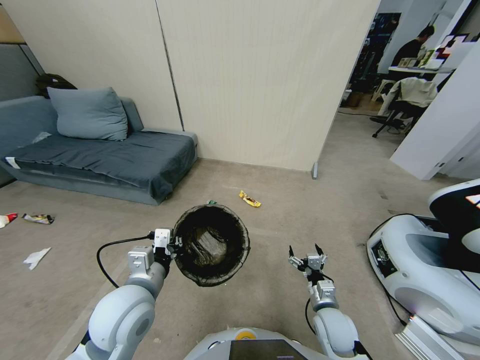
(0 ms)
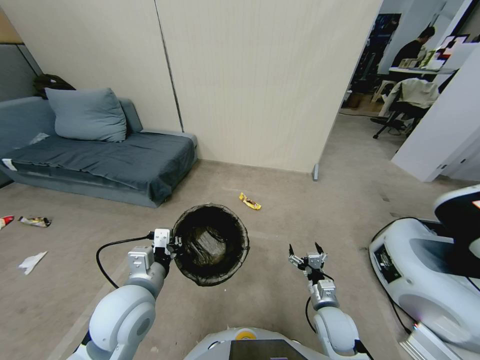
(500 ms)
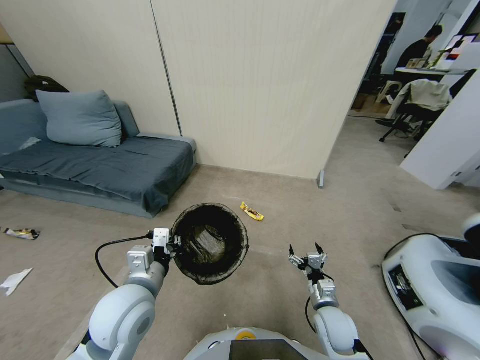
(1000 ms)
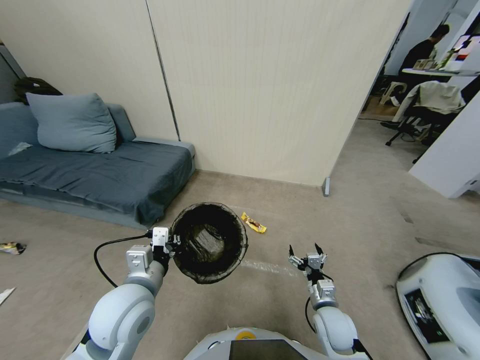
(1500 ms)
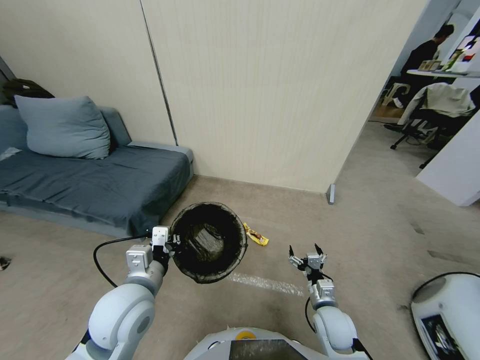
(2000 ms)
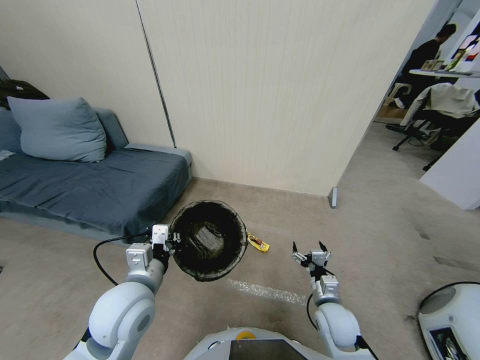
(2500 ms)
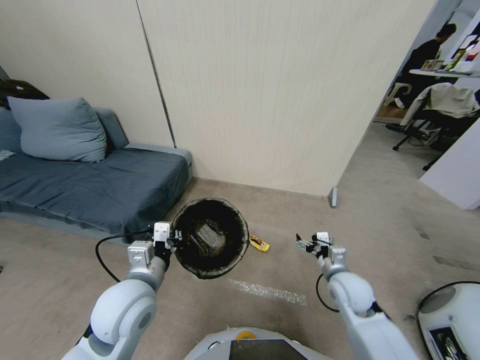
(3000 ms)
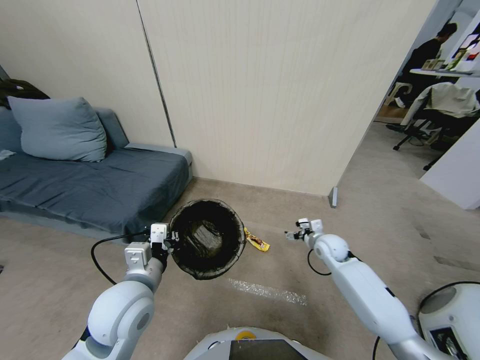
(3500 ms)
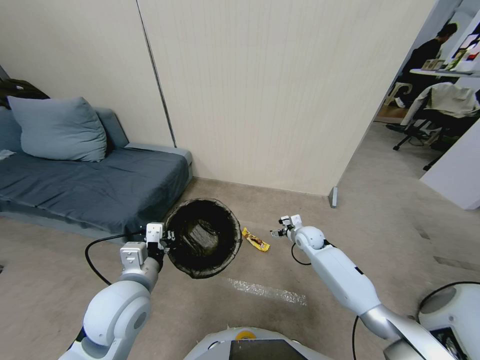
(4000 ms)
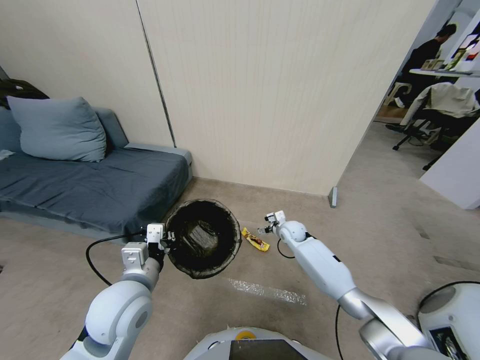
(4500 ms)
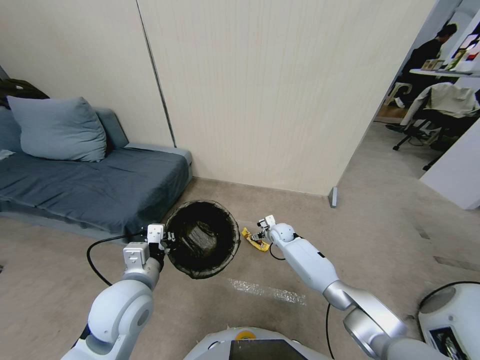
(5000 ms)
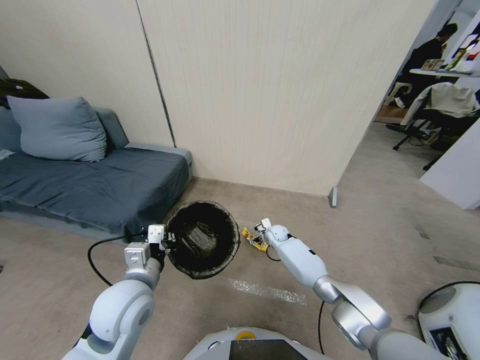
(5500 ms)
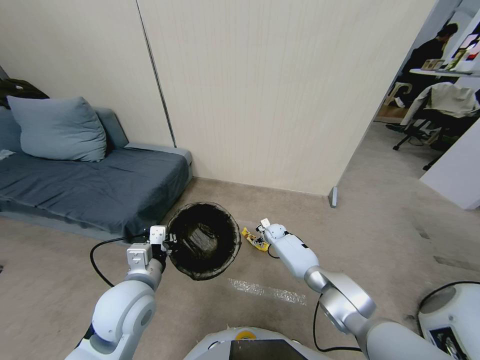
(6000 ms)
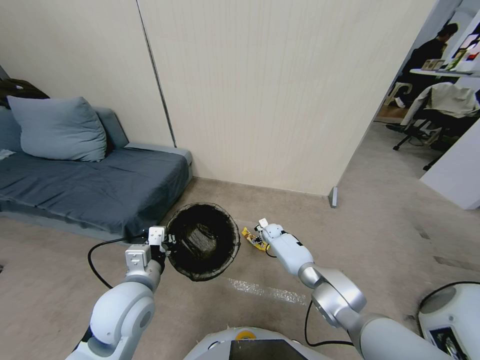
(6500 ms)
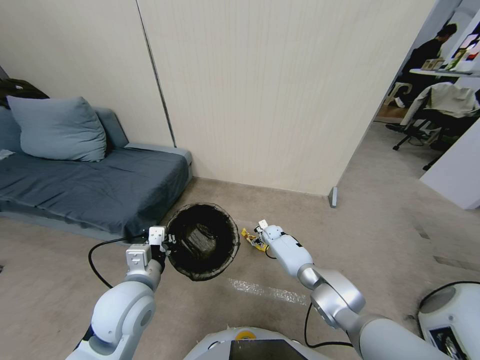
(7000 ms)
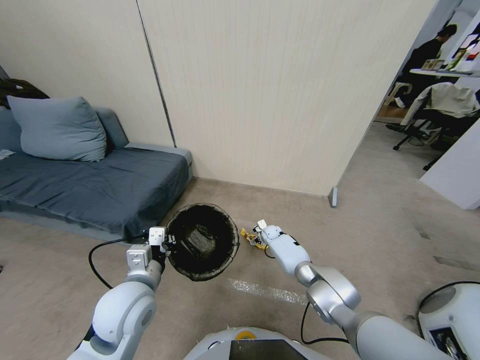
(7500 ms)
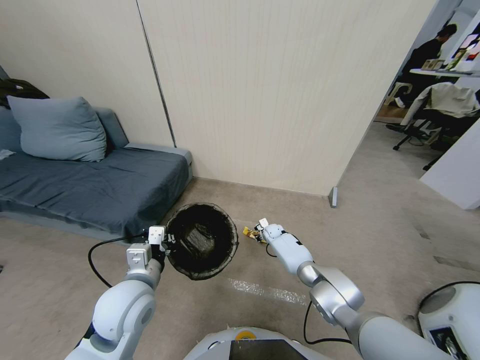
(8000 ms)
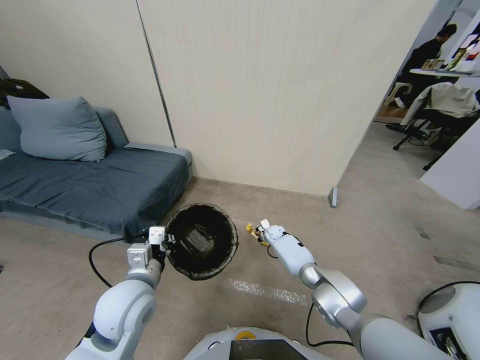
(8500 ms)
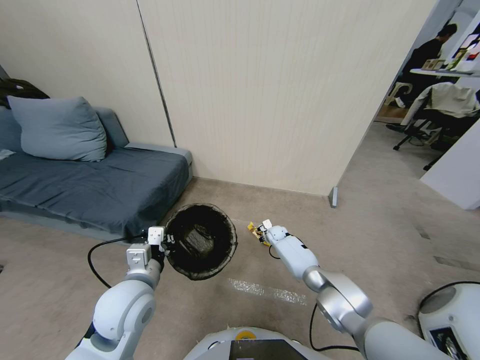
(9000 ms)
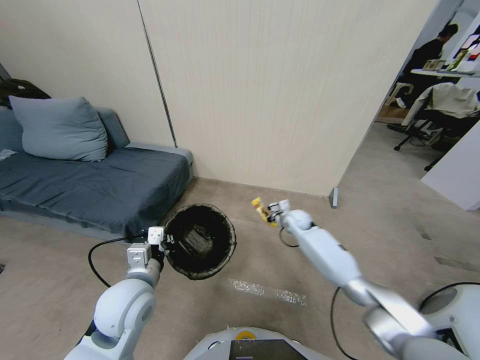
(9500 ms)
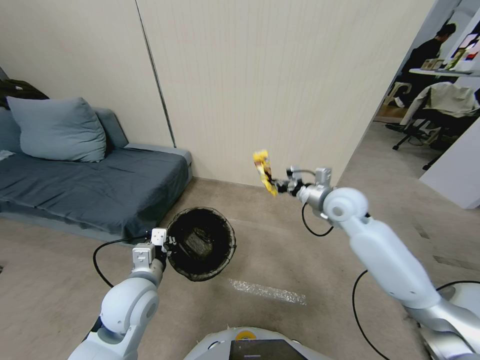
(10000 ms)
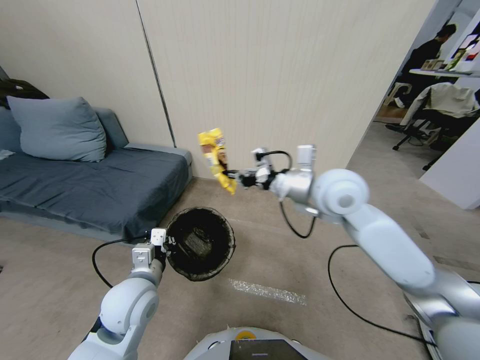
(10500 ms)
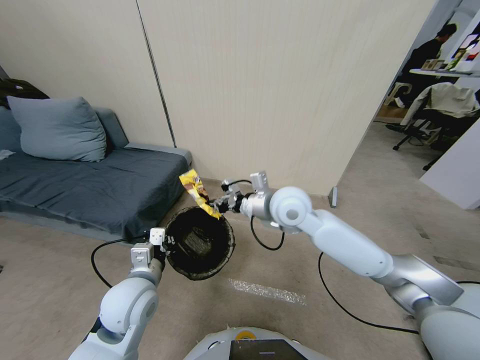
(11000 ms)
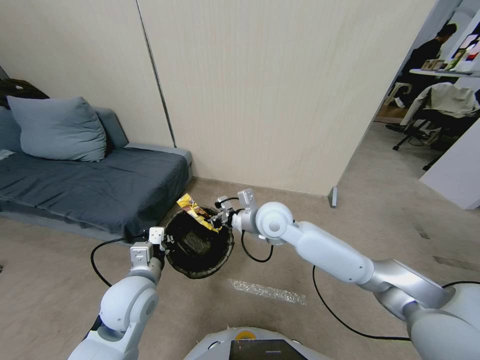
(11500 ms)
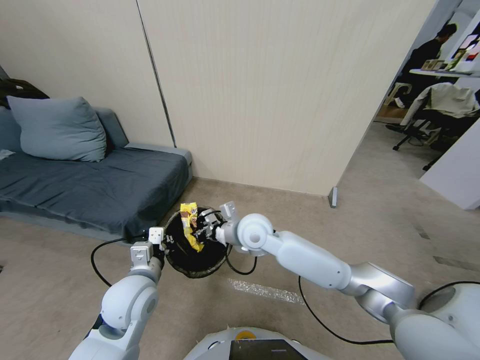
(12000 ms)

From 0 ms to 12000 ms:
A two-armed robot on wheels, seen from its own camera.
Task of the whole recording: Pick up the trash bin, then pick up the garbage from the floor and place it into the trash bin.
From 2000 ms to 4000 ms: The right gripper heads forward, covering about 25 cm.
From 4000 ms to 6000 ms: The right gripper shifts about 15 cm downward, forward and to the left.
From 6000 ms to 8000 ms: The right gripper closes.
From 8000 ms to 10000 ms: The right gripper shifts about 40 cm upward and backward.
From 10000 ms to 12000 ms: The right gripper goes some 25 cm to the left and downward.

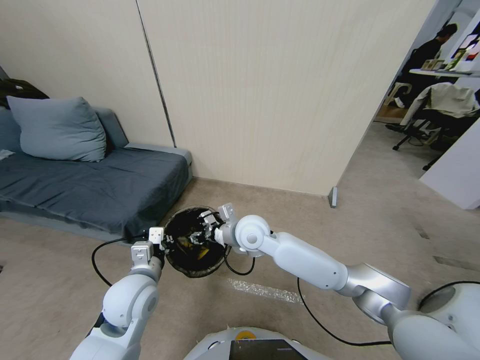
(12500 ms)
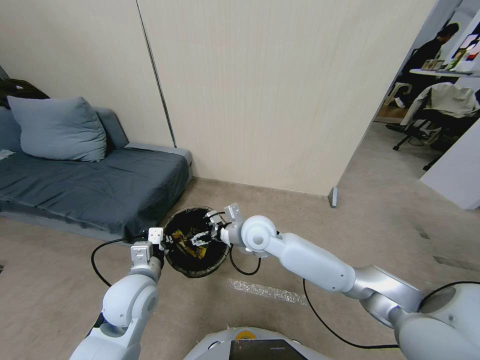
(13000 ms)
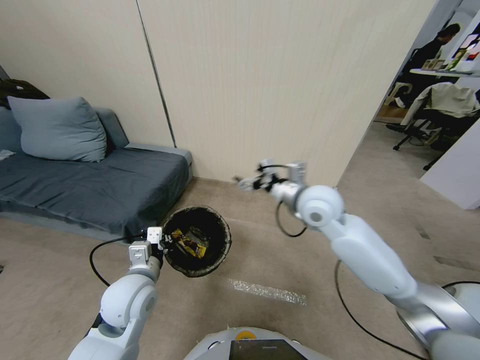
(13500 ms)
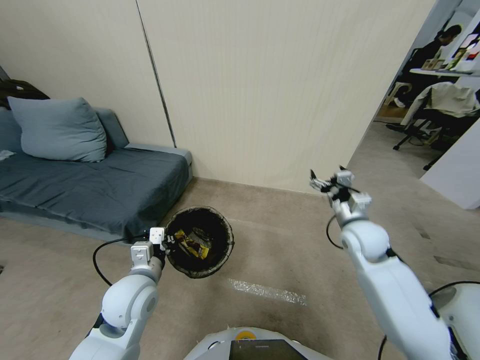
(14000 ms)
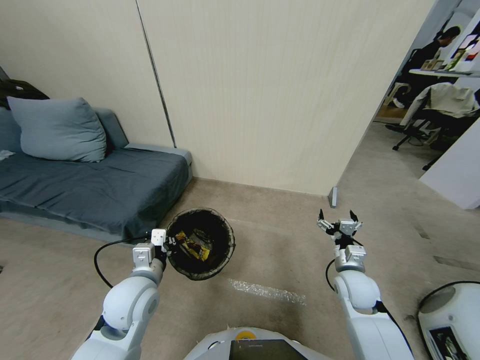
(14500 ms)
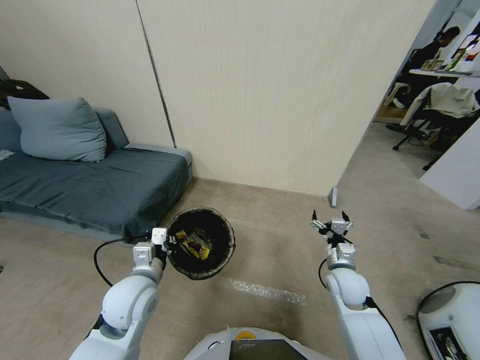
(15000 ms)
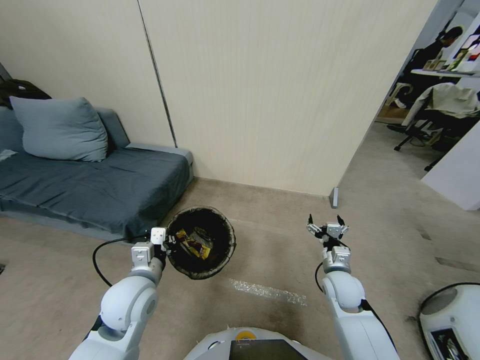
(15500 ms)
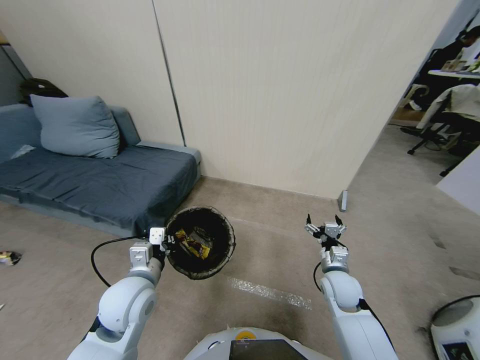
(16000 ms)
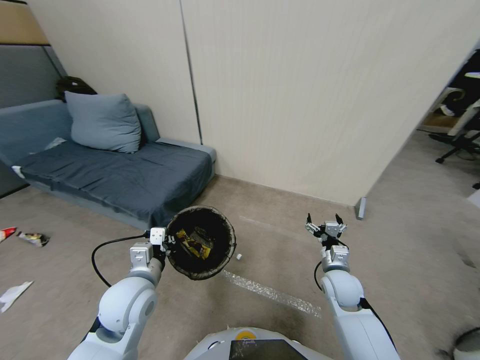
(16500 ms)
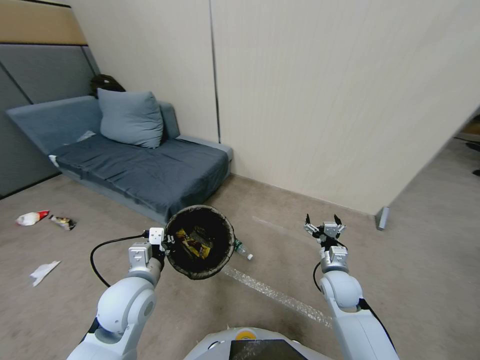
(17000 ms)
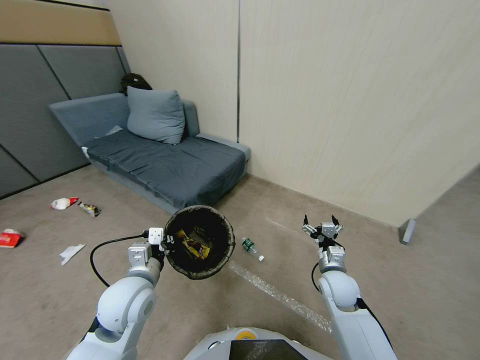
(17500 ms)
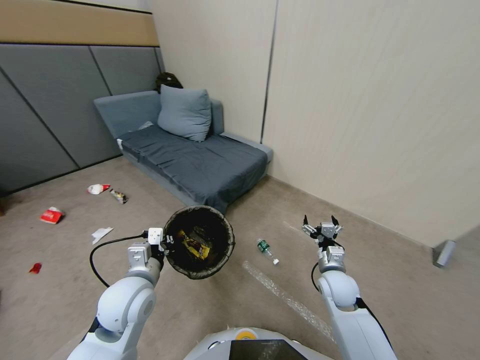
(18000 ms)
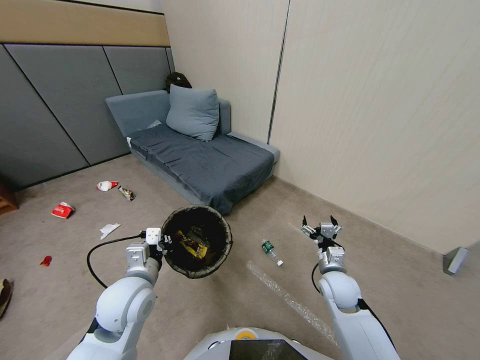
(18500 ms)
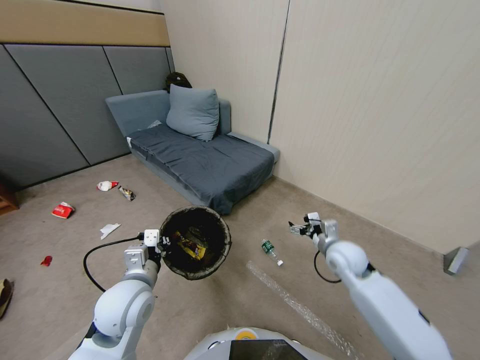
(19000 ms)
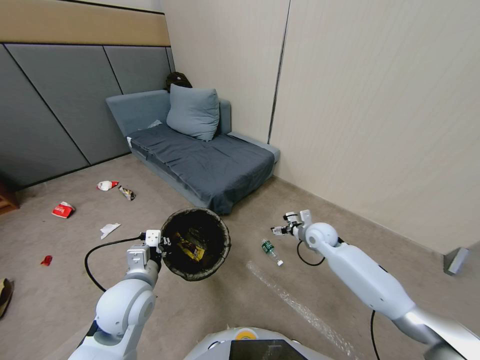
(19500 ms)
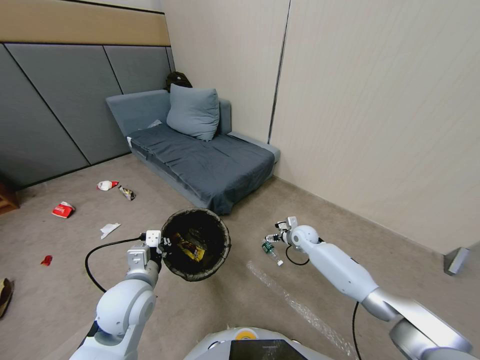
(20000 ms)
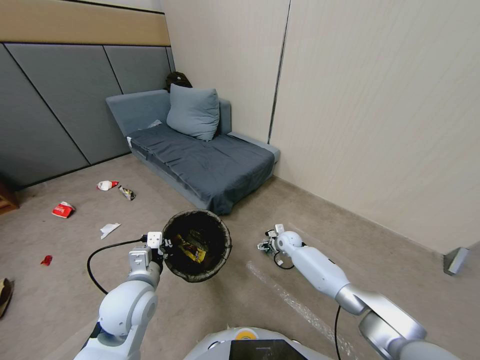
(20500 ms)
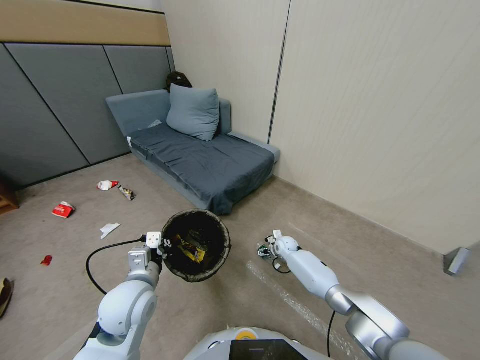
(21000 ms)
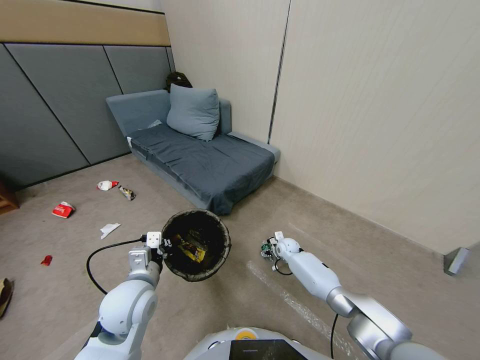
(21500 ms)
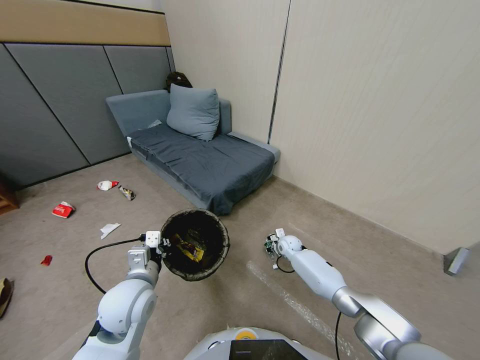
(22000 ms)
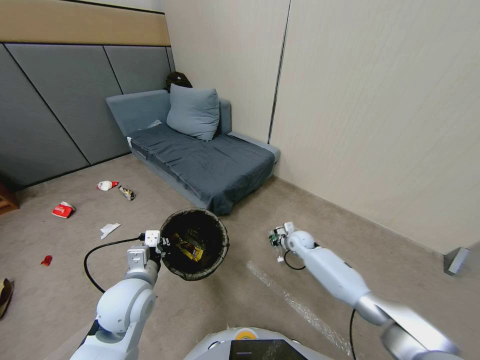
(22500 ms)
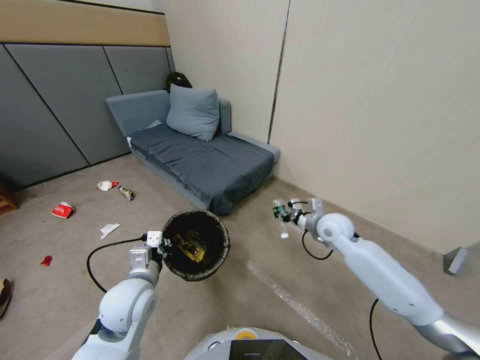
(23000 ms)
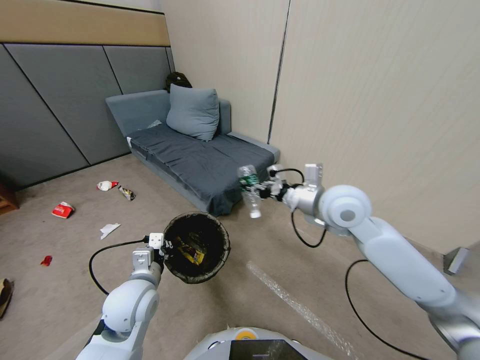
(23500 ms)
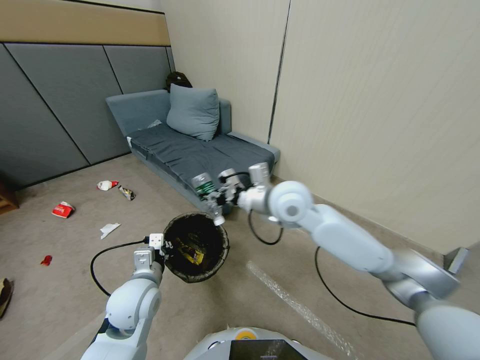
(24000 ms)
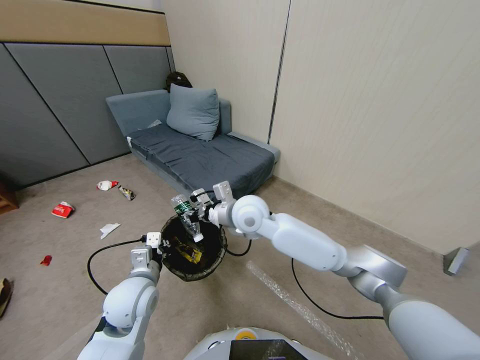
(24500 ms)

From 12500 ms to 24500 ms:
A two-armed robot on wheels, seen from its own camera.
Task of the whole recording: Pick up the trash bin, then pick up the garbage from the floor and place it into the trash bin.
From 12500 ms to 14500 ms: The right gripper shifts about 30 cm to the right and downward, and opens up.
From 18500 ms to 20500 ms: The right gripper heads forward and downward, covering approximately 25 cm.
From 20500 ms to 22500 ms: The right gripper travels upward and to the right by roughly 10 cm, and closes its fingers.
From 22500 ms to 24500 ms: The right gripper travels to the left and upward by approximately 35 cm.

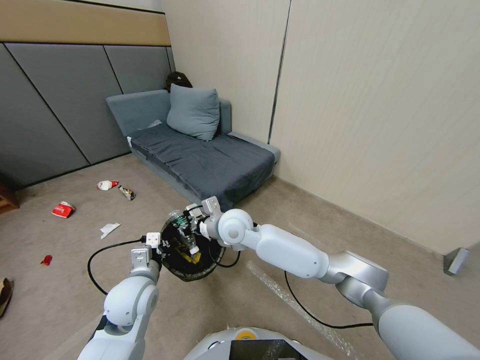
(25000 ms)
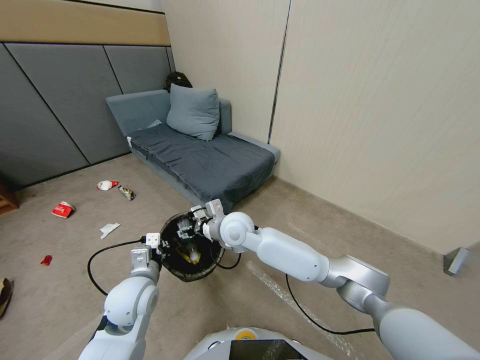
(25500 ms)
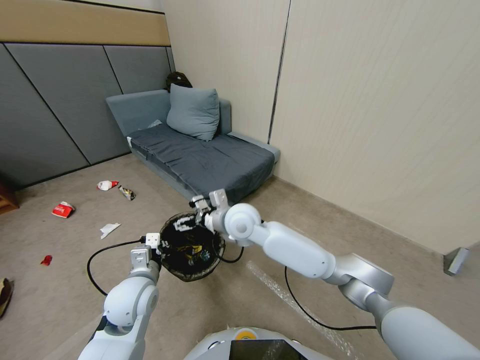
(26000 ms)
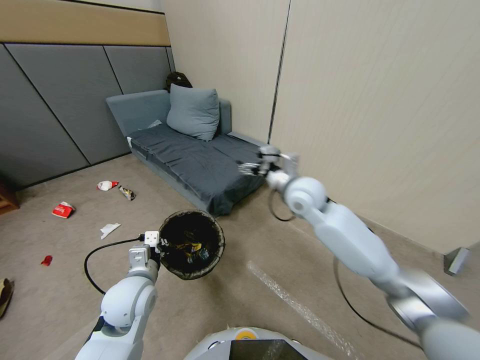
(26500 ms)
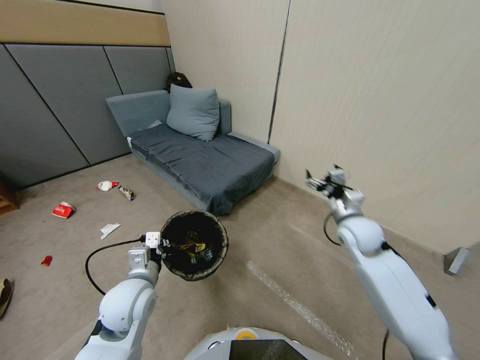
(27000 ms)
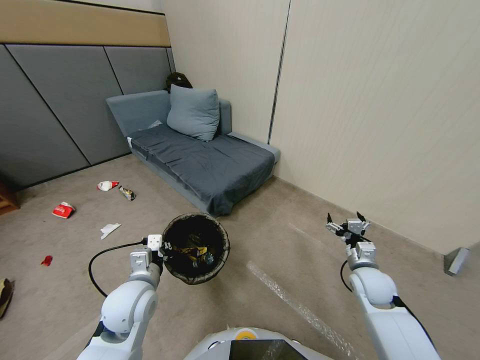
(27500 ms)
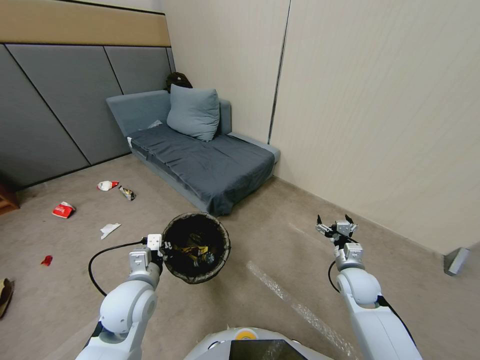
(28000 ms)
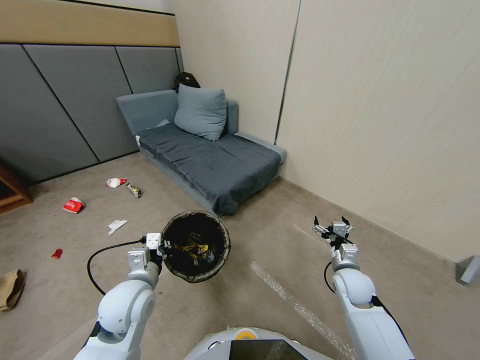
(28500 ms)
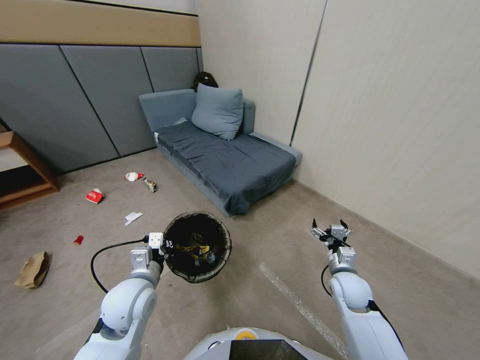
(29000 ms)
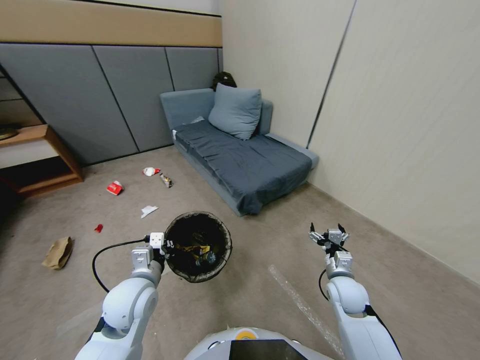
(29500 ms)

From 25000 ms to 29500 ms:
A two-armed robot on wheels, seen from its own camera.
Task of the whole recording: Pick up the trash bin, then pick up the garbage from the floor and place it into the trash bin.
From 25000 ms to 27000 ms: The right gripper goes some 35 cm to the right, and opens up.
From 27000 ms to 29500 ms: The right gripper is displaced downward and backward by approximately 15 cm.
